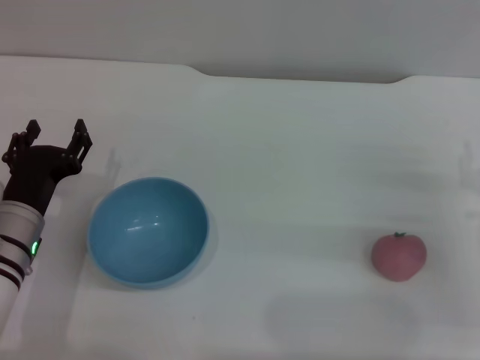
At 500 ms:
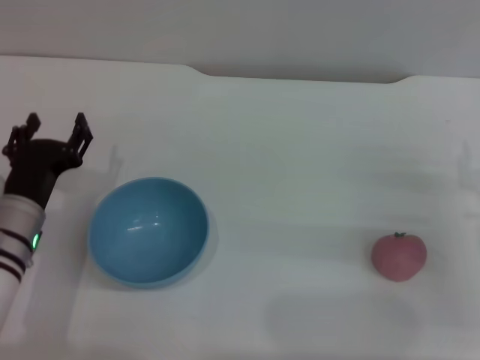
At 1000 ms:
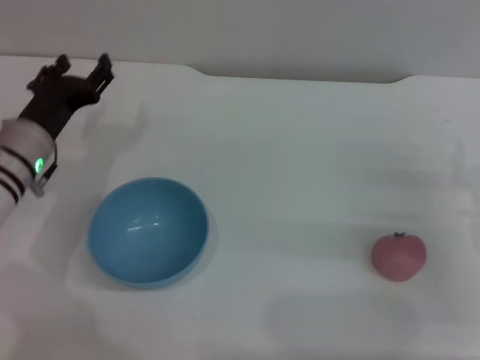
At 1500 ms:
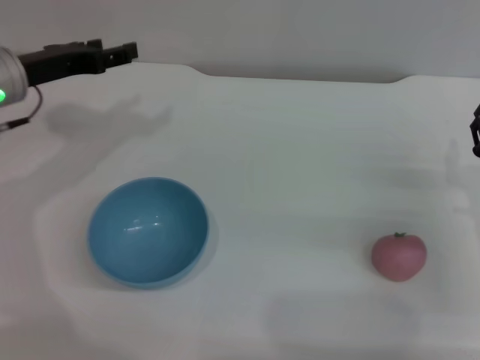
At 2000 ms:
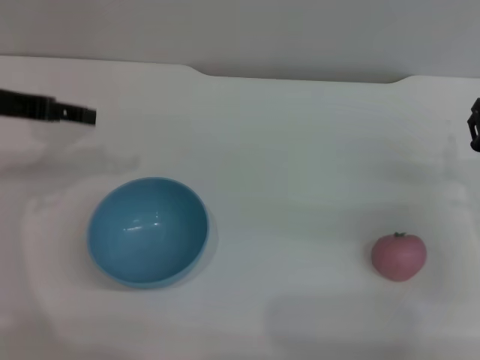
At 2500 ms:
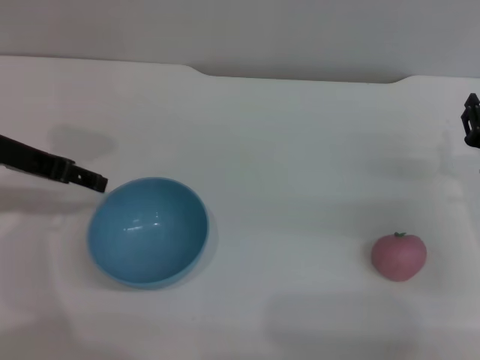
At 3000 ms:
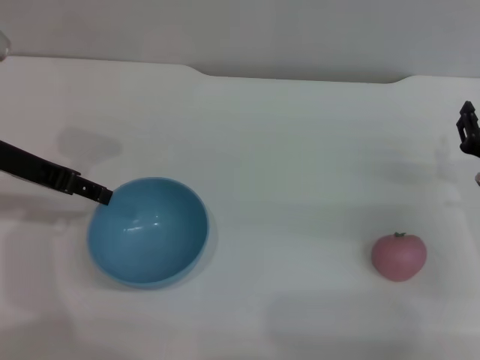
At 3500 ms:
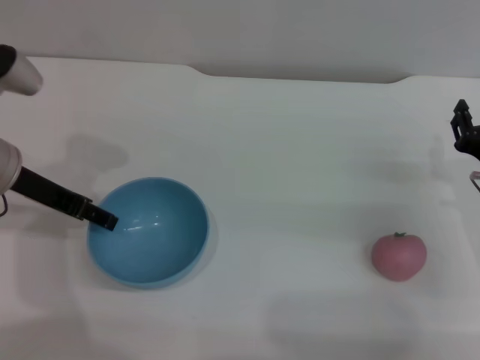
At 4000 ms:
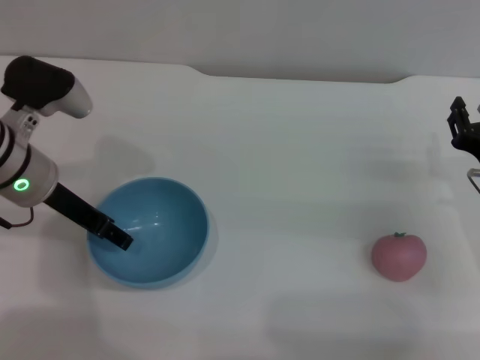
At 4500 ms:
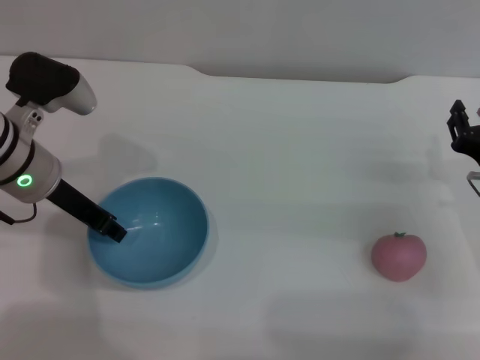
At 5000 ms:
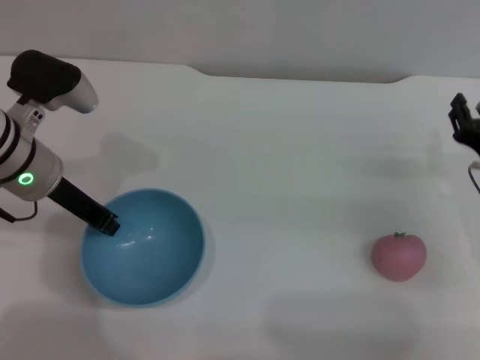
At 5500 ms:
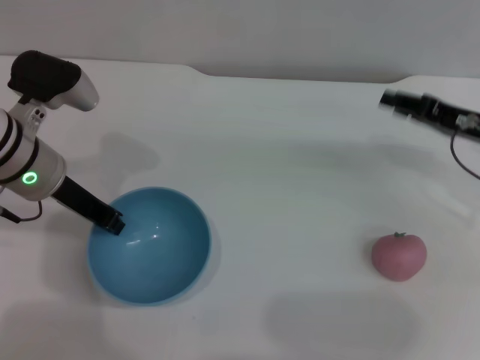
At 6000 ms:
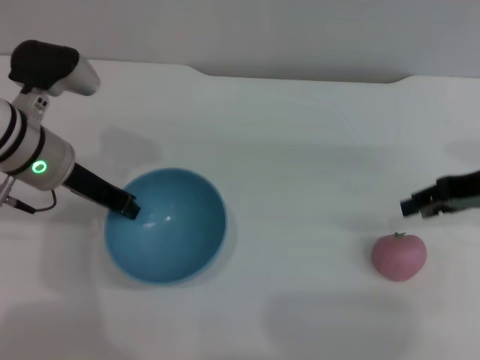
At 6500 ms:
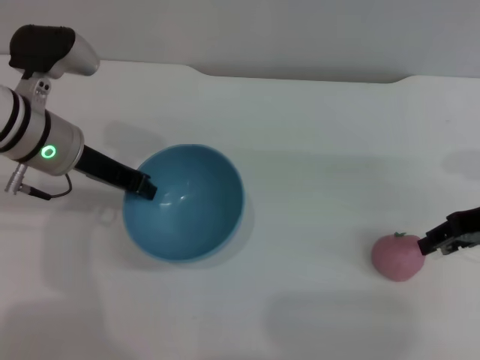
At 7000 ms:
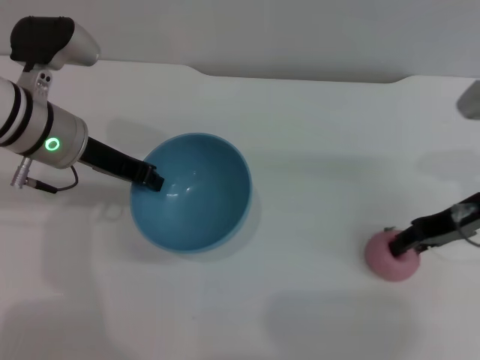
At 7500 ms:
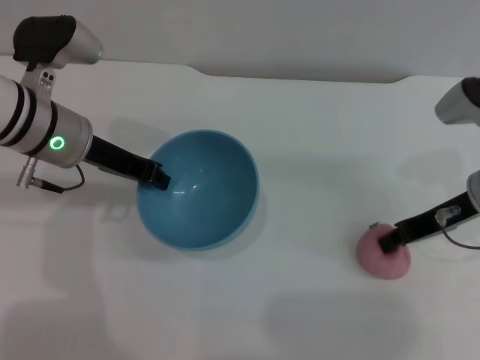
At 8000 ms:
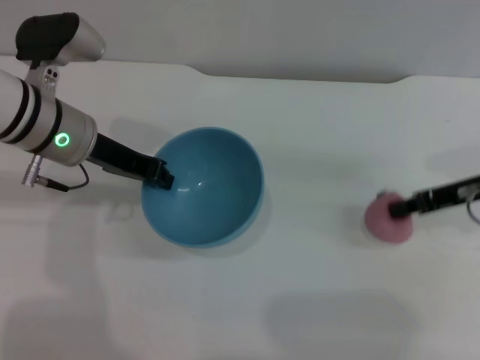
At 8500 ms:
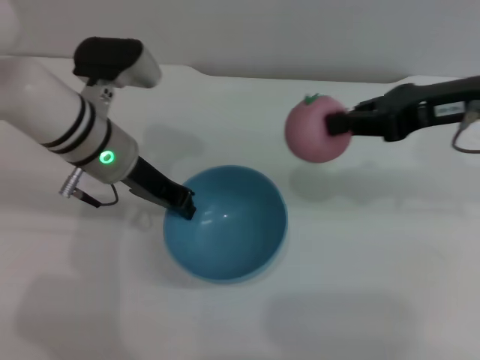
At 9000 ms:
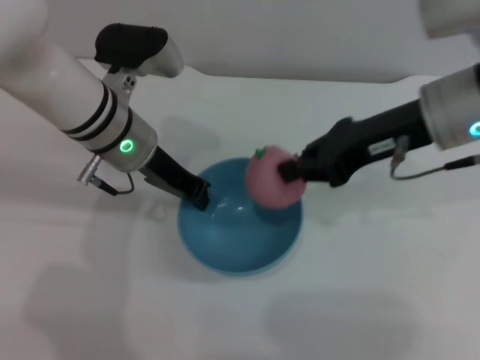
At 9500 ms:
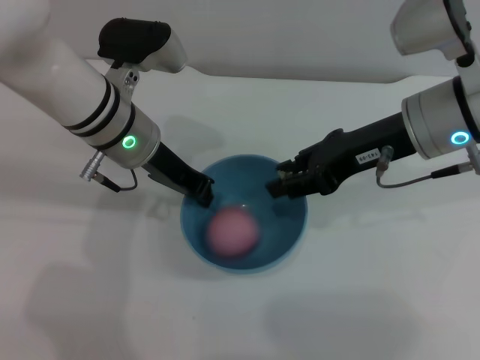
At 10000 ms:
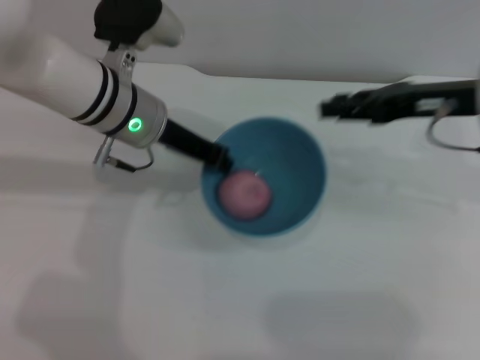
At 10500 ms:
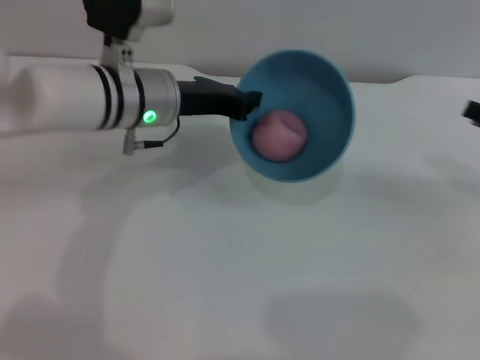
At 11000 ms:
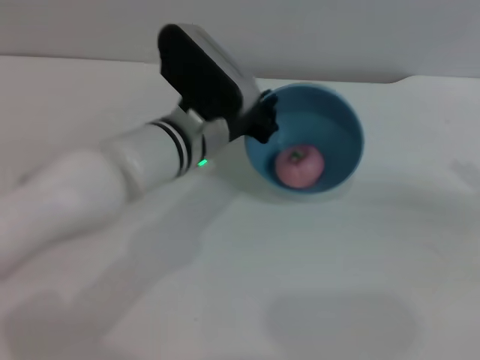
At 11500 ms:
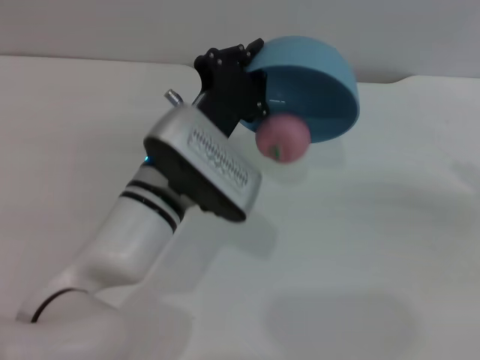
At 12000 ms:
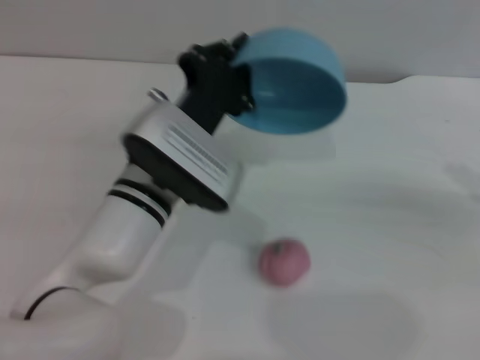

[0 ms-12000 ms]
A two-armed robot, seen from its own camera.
Task of the whole recording: put the peach into the blue bowl and pour it out repeatedly.
Step, 0 ms to 5000 ms: Pick up the bowl with the left gripper.
Step, 5500 ms to 8000 ms: Pick up the peach with the right gripper.
Step, 8500 ms to 9500 ms: Place the peach into the bowl.
0 ms to 2000 ms: The left gripper heads upward and forward, covering about 20 cm.
2000 ms to 4000 ms: The left gripper travels downward and to the right by some 10 cm.
4000 ms to 6000 ms: The right gripper heads upward, covering about 10 cm. Meanwhile the left gripper closes its fingers.
6000 ms to 8000 ms: The right gripper closes up.
8000 ms to 10000 ms: The left gripper heads to the right, covering roughly 5 cm, while the right gripper travels upward by about 5 cm, travels to the left and back again, some 10 cm each way, and opens.
10000 ms to 12000 ms: The right gripper heads to the right, backward and downward, covering some 15 cm; the left gripper heads backward and downward, covering approximately 10 cm.

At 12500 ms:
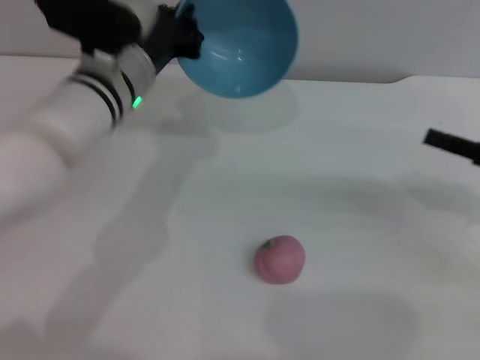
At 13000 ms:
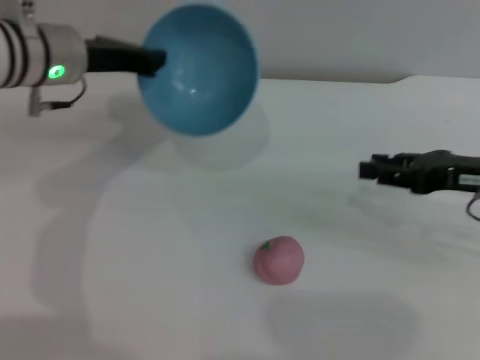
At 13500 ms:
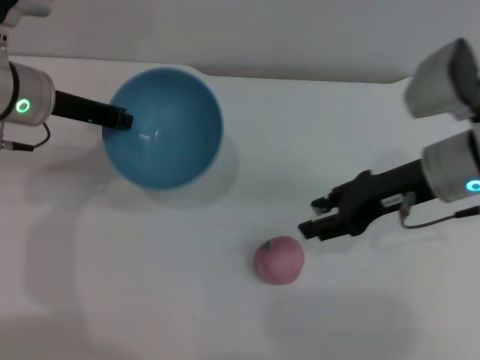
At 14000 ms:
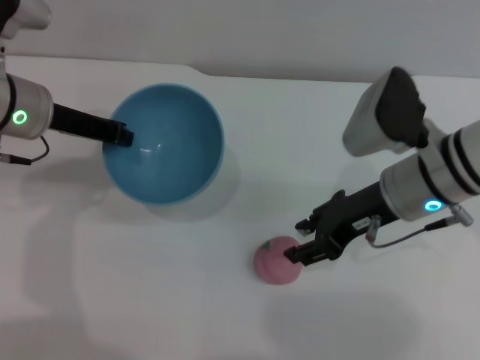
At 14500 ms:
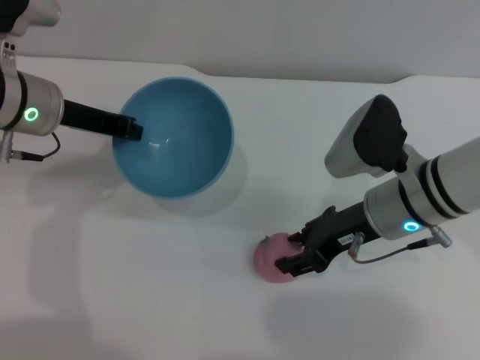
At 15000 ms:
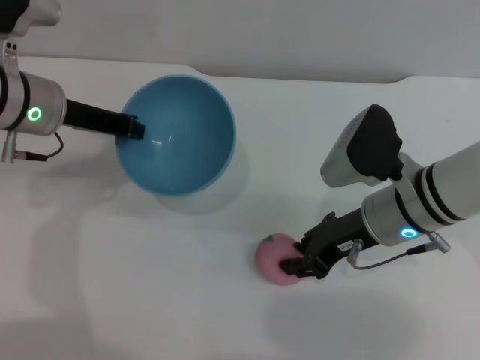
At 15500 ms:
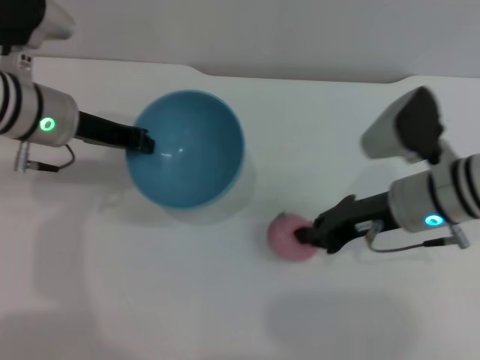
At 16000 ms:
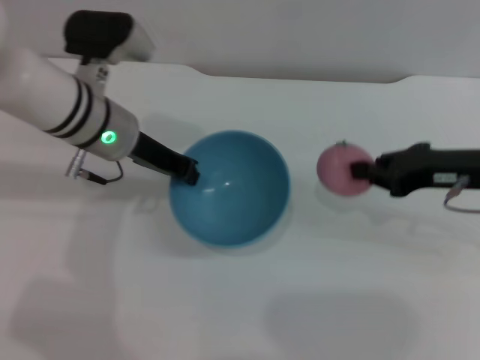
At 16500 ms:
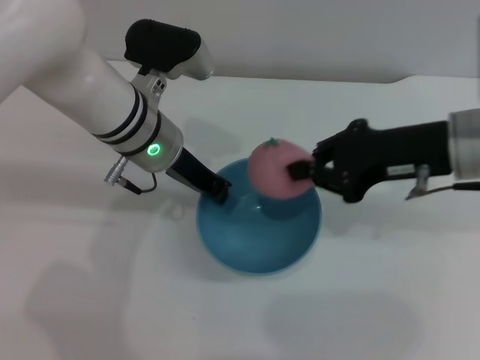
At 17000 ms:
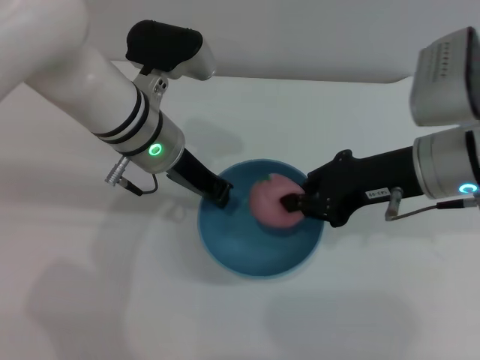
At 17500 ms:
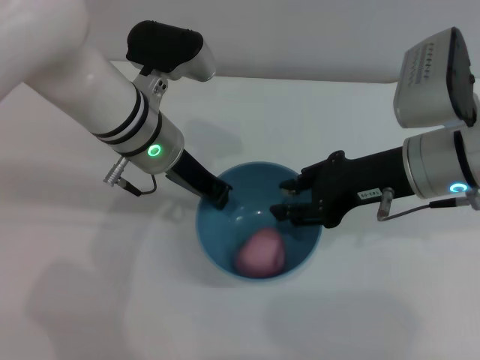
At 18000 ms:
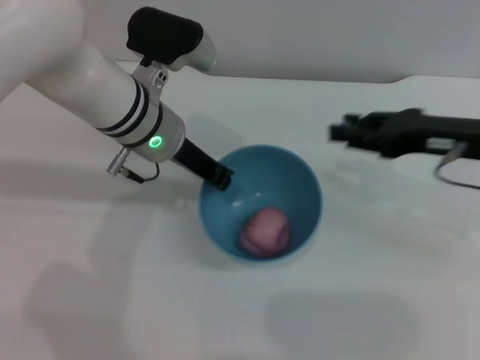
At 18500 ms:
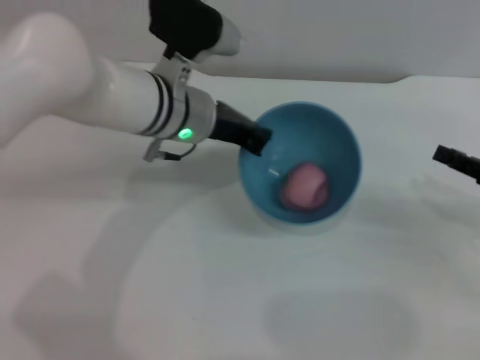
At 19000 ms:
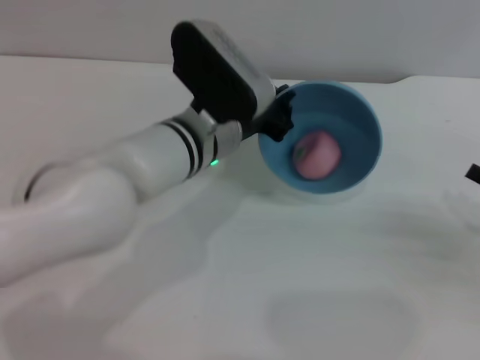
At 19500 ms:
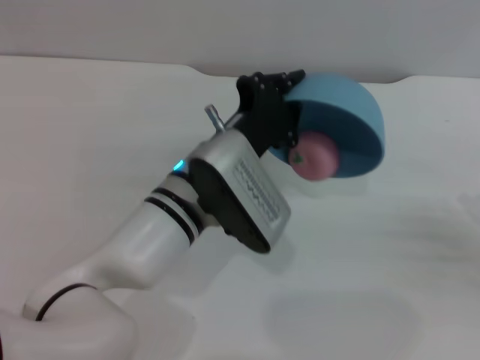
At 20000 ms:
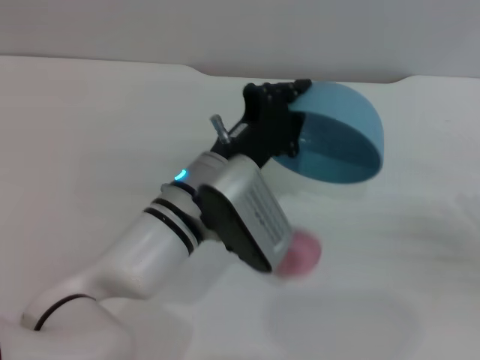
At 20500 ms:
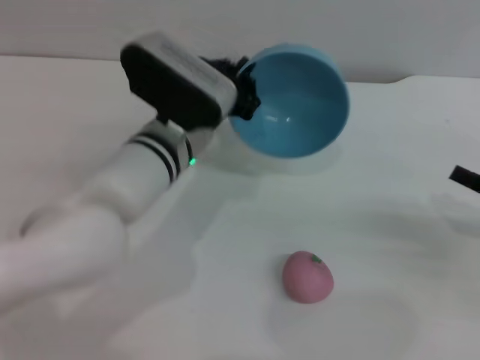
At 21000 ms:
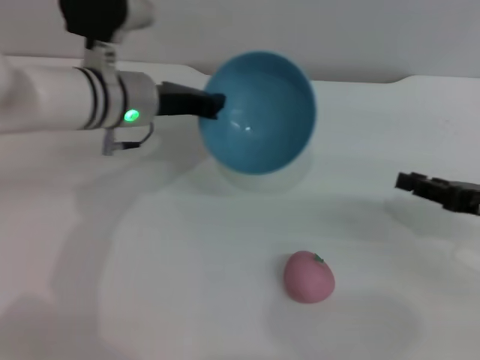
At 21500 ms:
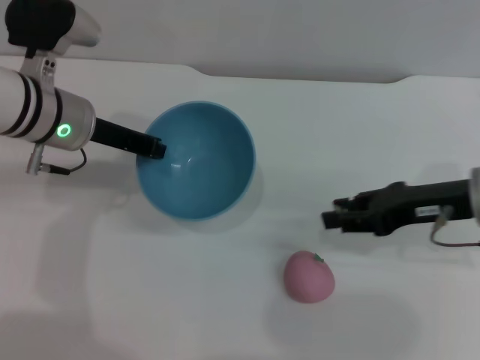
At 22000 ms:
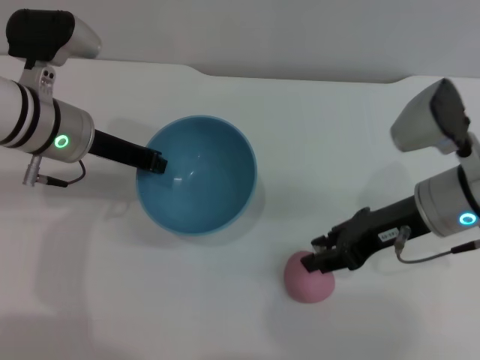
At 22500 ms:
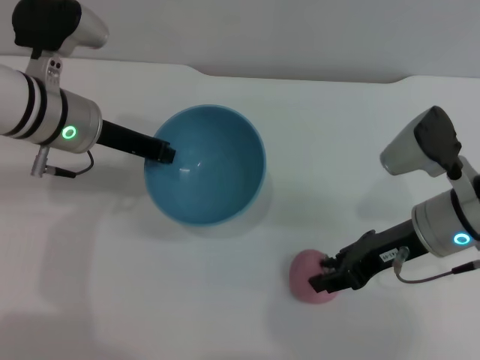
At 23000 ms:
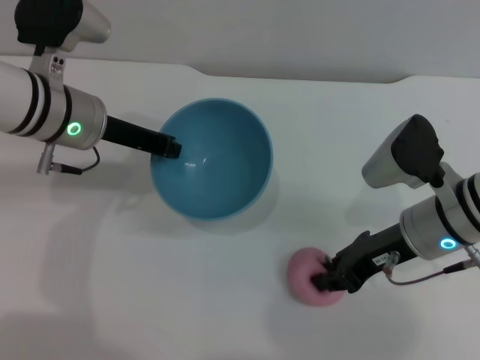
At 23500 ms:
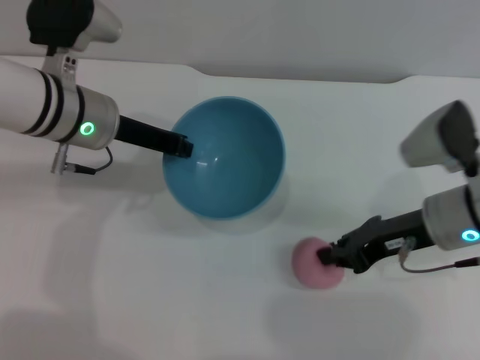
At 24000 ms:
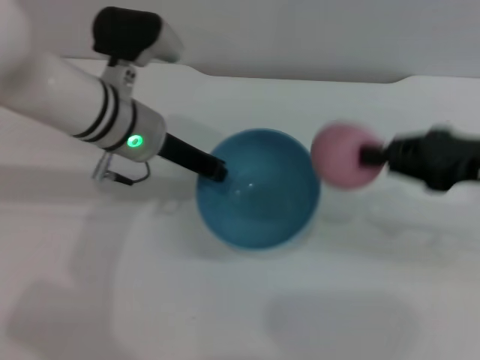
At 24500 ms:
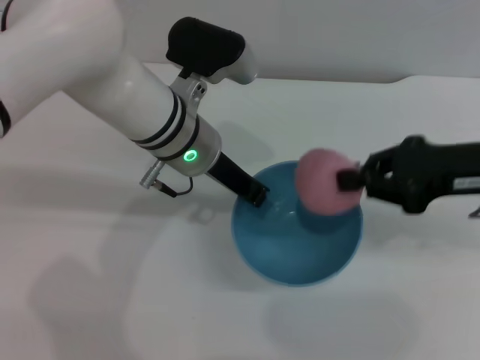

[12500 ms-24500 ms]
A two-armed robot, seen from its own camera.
Task of the whole recording: put the peach into the blue bowl and pour it out repeatedly.
Step, 13500 ms to 15500 ms: Pick up the peach with the right gripper.
Step, 16000 ms to 18000 ms: Place the peach into the bowl.
Step, 18500 ms to 21000 ms: Pour the peach out of bowl.
Step, 21500 ms to 23500 ms: Pick up the peach with the right gripper.
12500 ms to 14500 ms: The right gripper moves to the left, approximately 20 cm. Meanwhile the left gripper travels to the left by approximately 10 cm.
14500 ms to 16500 ms: The left gripper travels to the right by approximately 10 cm. The right gripper travels upward and to the right by some 10 cm, and closes its fingers.
16500 ms to 18500 ms: The right gripper heads to the right and downward, covering about 15 cm, and opens its fingers.
20500 ms to 22500 ms: The grippers both shift to the left by some 15 cm.
22500 ms to 24500 ms: The left gripper shifts approximately 10 cm to the right. The right gripper heads upward and to the right, covering about 10 cm, and closes its fingers.

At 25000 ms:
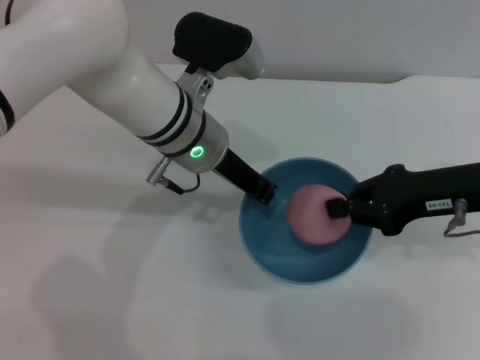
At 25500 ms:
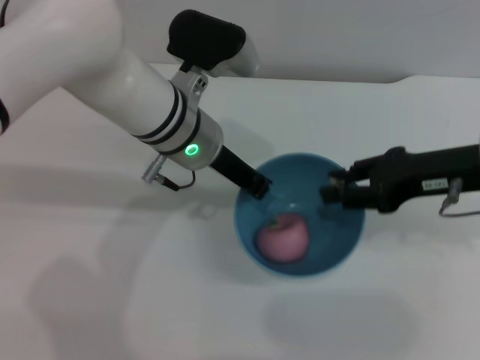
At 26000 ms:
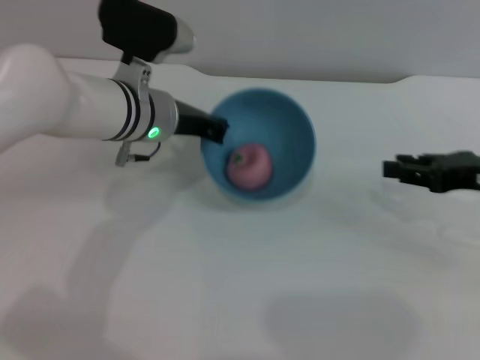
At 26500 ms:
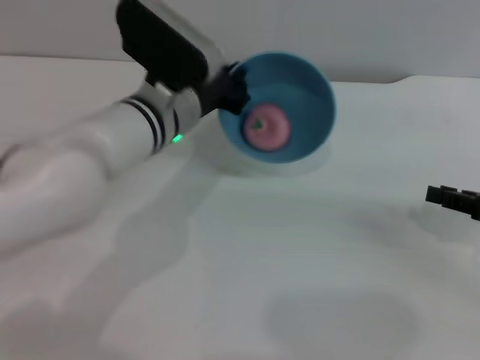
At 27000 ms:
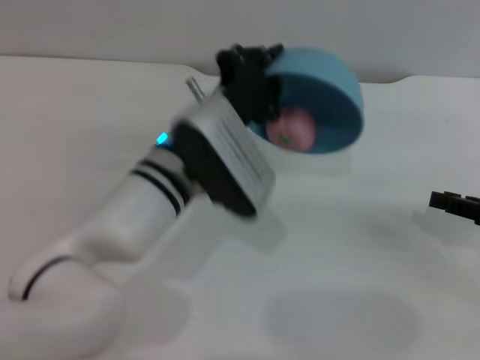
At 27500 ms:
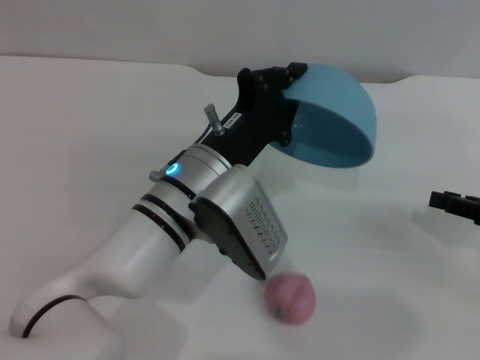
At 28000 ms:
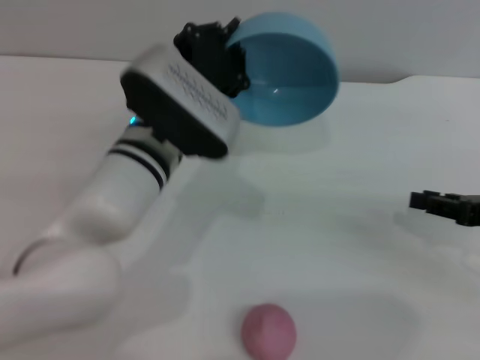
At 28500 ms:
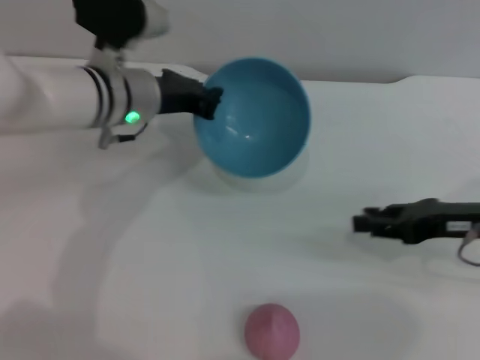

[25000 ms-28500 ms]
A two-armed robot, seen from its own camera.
Task of the whole recording: put the peach into the blue bowl and pour it out repeatedly.
Step, 26000 ms to 28500 ms: Pour the peach out of bowl.
25000 ms to 27000 ms: The right gripper heads to the right and downward, covering some 10 cm, and opens, while the left gripper goes roughly 5 cm backward.
27000 ms to 28500 ms: The right gripper travels to the left by approximately 10 cm; the left gripper heads to the left and forward, covering some 10 cm.
